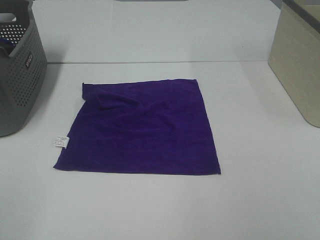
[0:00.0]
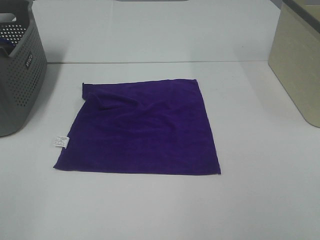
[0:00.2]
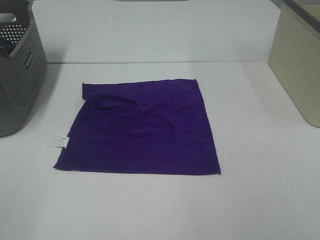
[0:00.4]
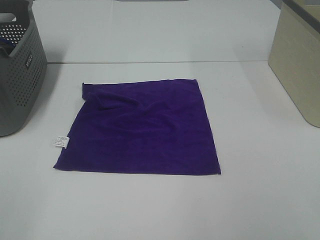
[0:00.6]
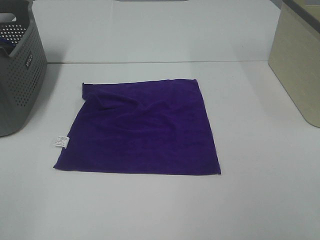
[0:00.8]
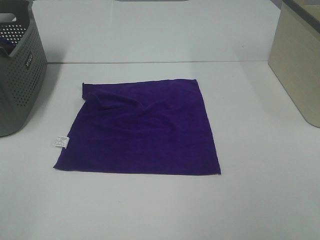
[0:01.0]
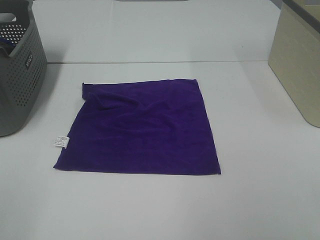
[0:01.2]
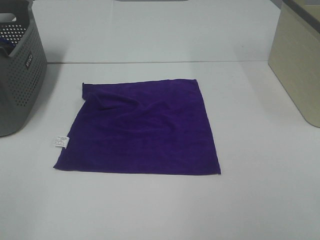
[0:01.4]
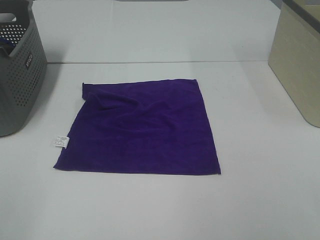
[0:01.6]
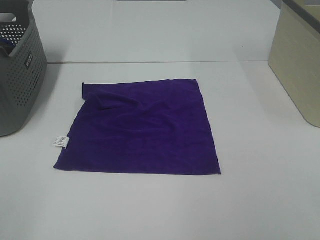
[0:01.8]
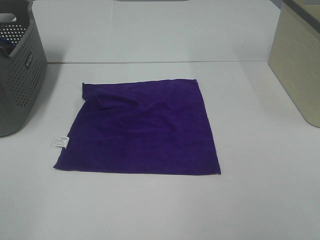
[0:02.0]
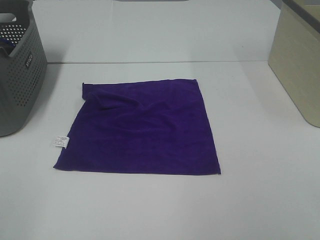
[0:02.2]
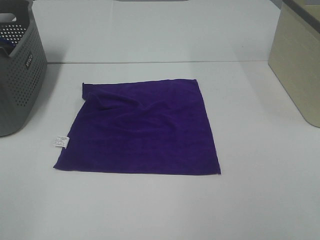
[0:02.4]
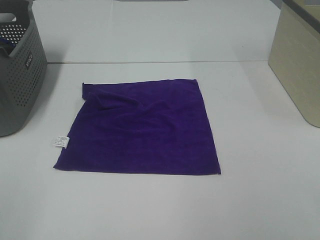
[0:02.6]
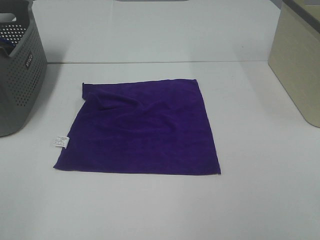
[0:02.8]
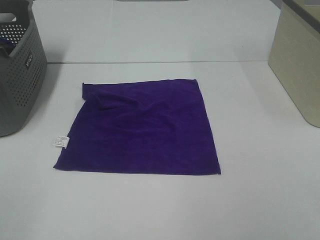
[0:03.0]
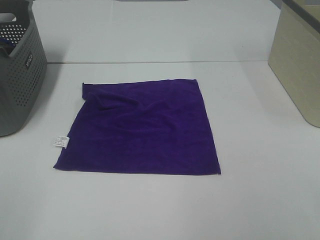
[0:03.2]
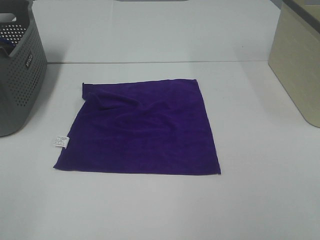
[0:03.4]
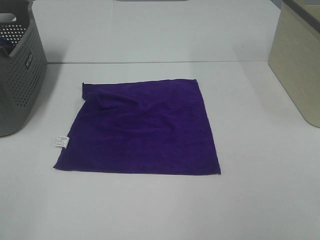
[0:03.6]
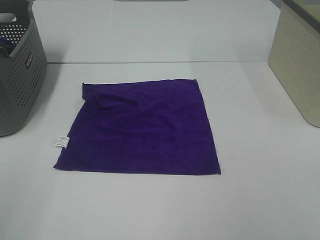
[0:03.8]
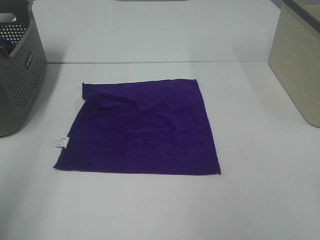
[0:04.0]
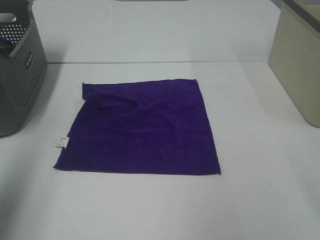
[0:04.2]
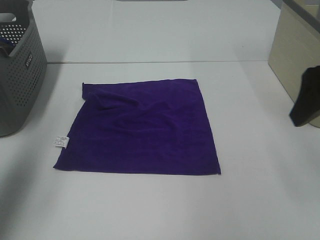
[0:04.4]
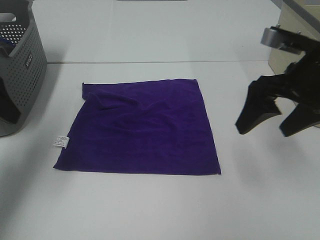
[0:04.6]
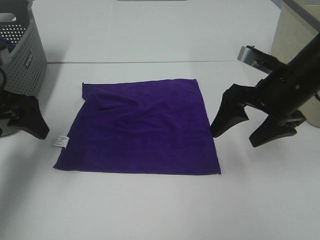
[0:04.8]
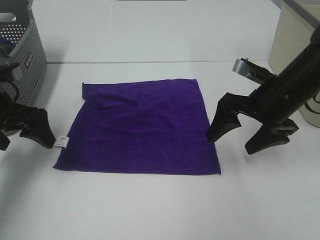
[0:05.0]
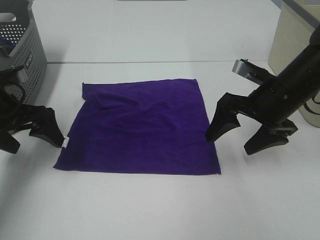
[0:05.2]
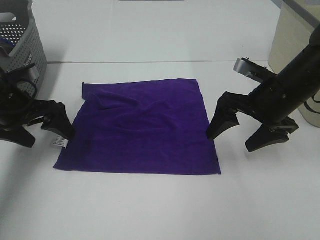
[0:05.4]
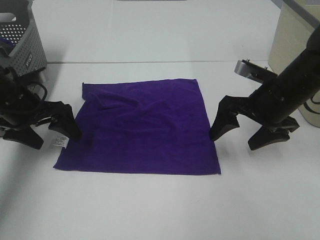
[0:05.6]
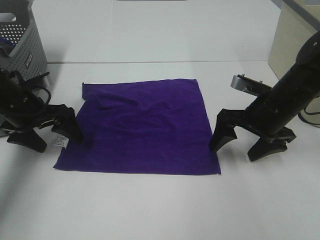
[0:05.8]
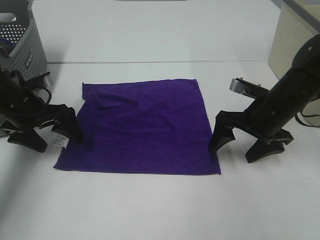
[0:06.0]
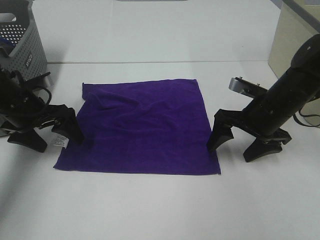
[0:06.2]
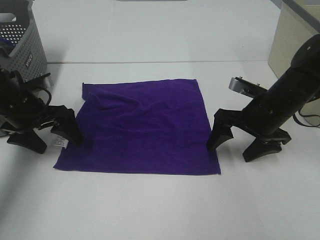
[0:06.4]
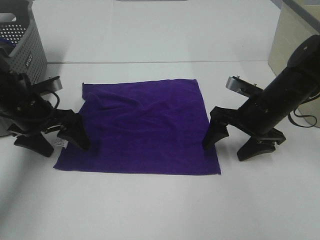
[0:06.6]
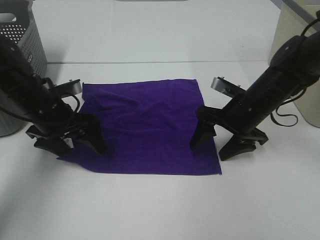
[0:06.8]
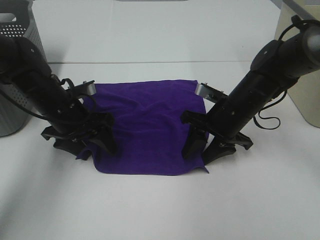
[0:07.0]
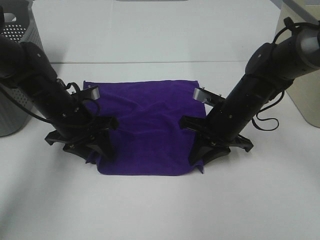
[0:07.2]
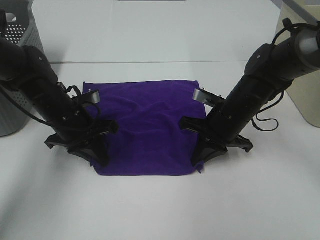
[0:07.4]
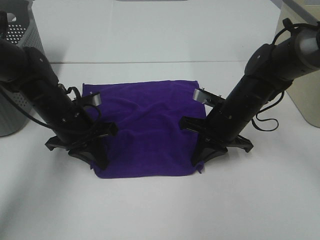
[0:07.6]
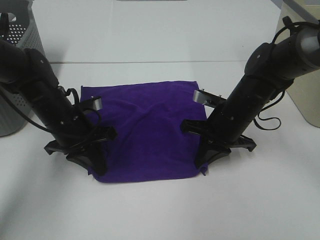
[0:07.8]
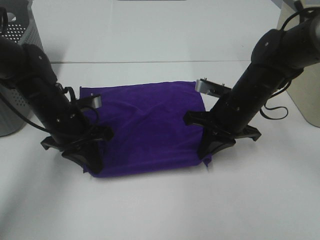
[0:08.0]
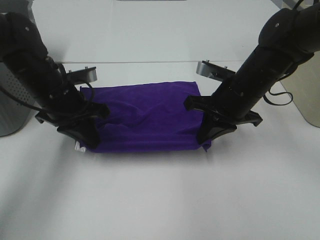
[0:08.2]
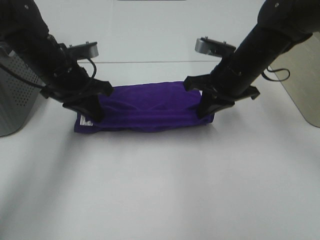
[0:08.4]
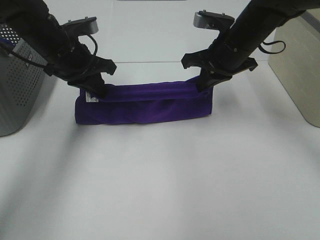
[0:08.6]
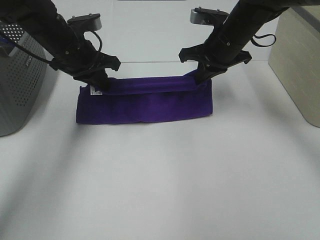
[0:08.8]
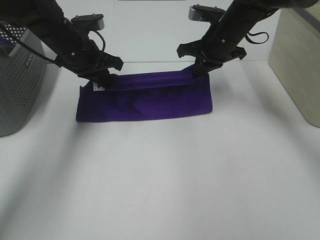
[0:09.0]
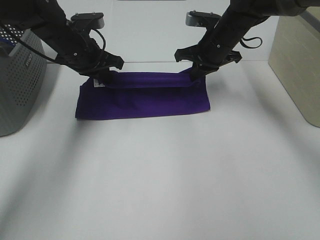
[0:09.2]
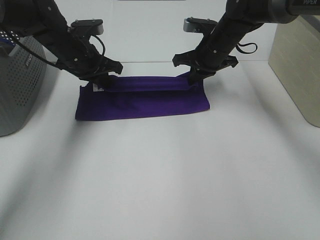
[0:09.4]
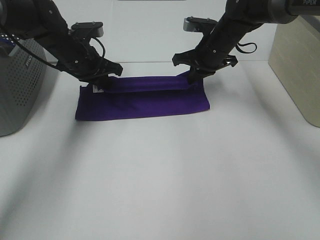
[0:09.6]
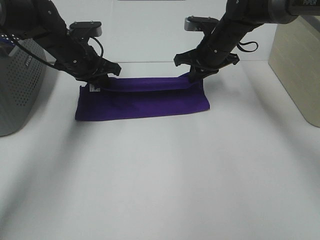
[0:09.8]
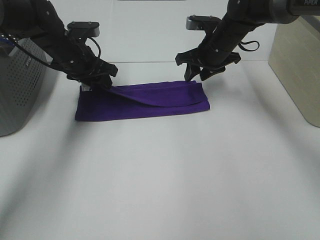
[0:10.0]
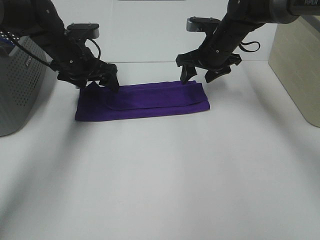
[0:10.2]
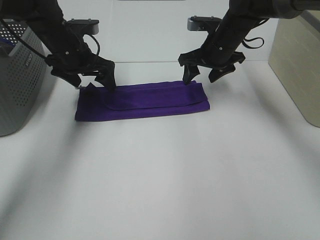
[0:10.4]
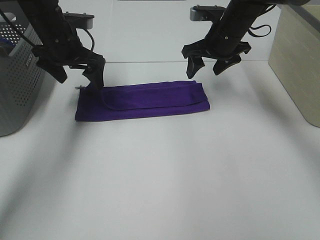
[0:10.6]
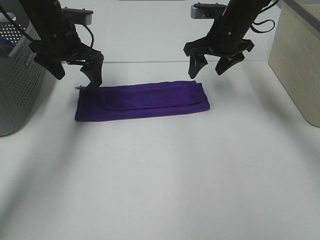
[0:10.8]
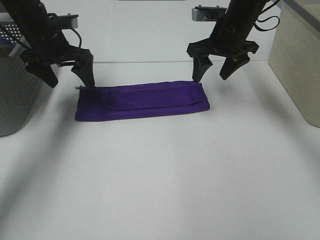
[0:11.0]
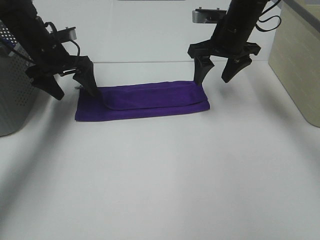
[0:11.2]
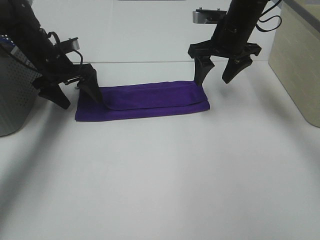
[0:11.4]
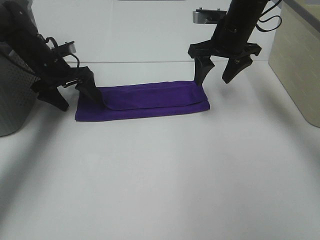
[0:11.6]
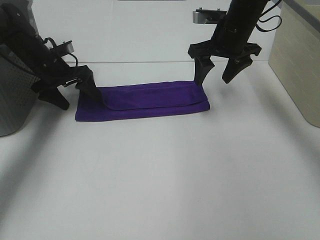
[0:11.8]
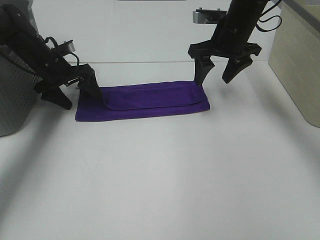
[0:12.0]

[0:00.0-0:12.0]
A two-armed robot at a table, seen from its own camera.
Task of the whole recording: Fold towels.
Step, 0:00.0 to 0:07.6: Left hand: grab the bottom left corner of purple towel.
Step, 0:00.0 to 0:07.6: Right hand: grab the bottom right corner of purple towel.
Step, 0:07.8 to 0:09.6: Left hand: fold the purple towel up.
Step, 0:07.8 to 0:09.6: Right hand: fold the purple towel up.
0:00.0 to 0:03.0: The two grippers keep their place.
0:03.0 to 0:04.4: Both grippers travel together forward, approximately 25 cm.
0:04.4 to 0:06.0: Both grippers travel together downward and forward, some 20 cm.
0:06.0 to 0:07.6: The left gripper travels to the right by roughly 10 cm, and closes its fingers, while the right gripper travels to the left by approximately 5 cm, and closes.
0:07.6 to 0:09.0: The grippers both shift forward and upward by approximately 15 cm.
0:09.0 to 0:10.4: The right gripper opens up. Meanwhile the left gripper opens up.
0:10.4 to 0:12.0: The left gripper travels to the left and downward by roughly 10 cm.

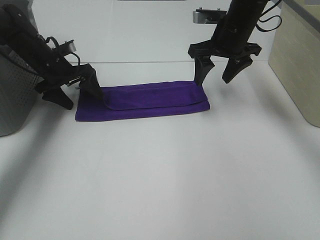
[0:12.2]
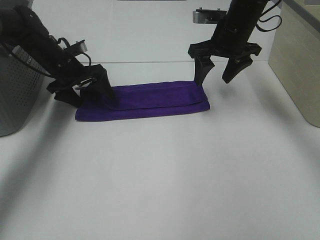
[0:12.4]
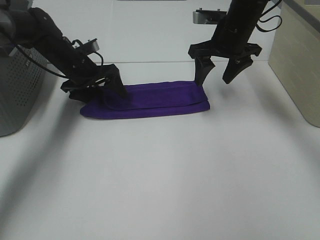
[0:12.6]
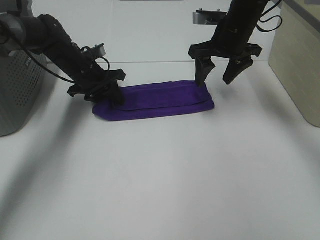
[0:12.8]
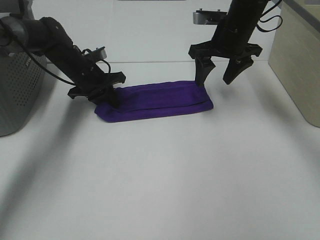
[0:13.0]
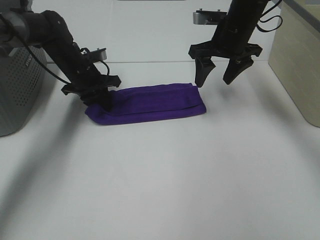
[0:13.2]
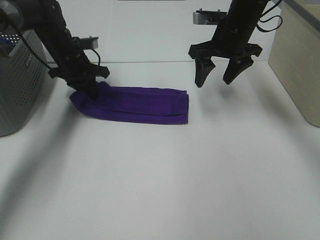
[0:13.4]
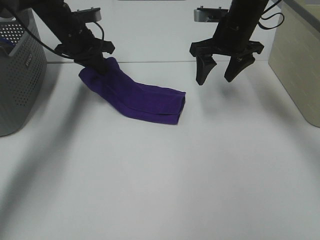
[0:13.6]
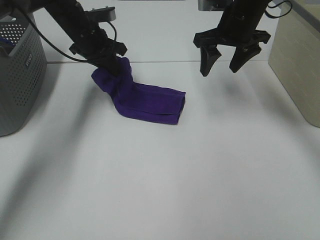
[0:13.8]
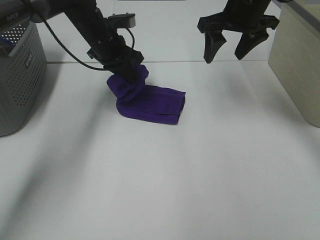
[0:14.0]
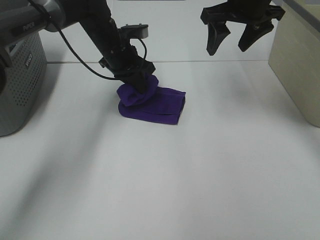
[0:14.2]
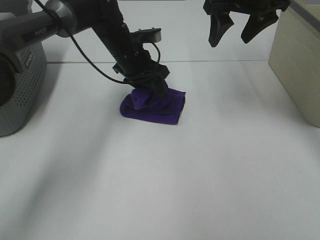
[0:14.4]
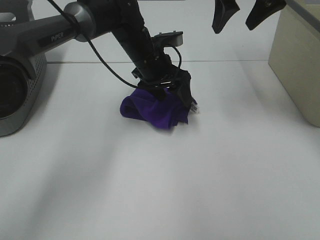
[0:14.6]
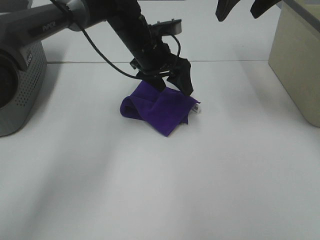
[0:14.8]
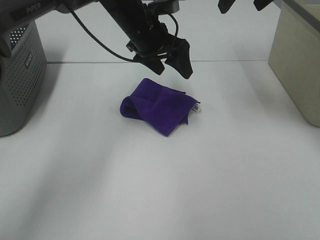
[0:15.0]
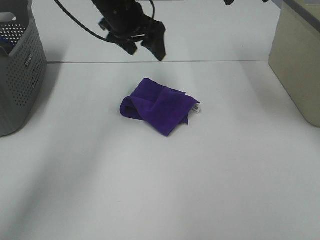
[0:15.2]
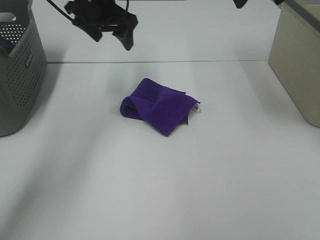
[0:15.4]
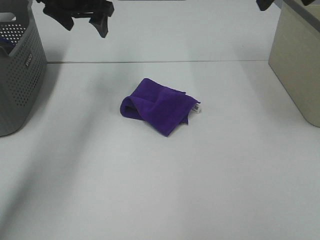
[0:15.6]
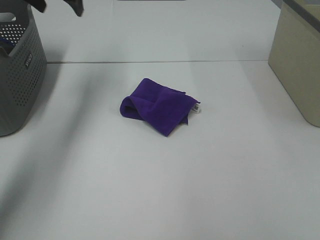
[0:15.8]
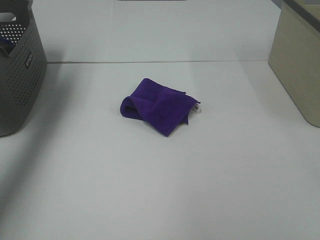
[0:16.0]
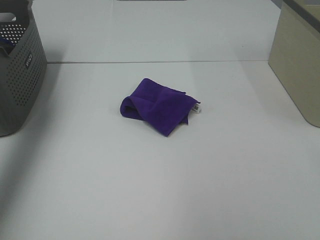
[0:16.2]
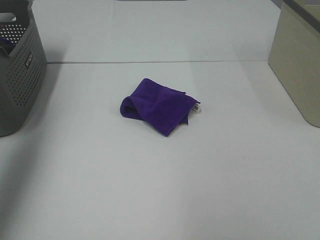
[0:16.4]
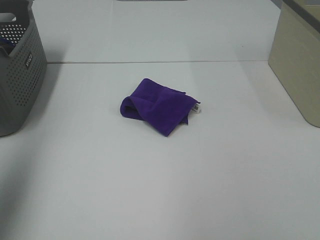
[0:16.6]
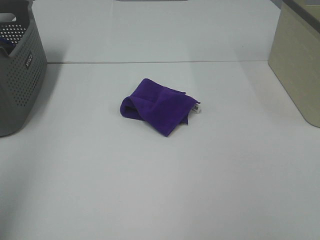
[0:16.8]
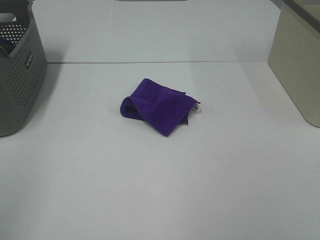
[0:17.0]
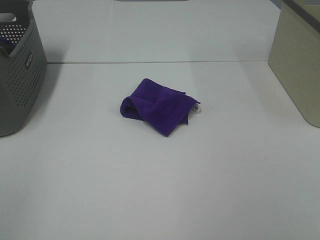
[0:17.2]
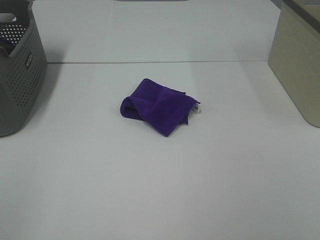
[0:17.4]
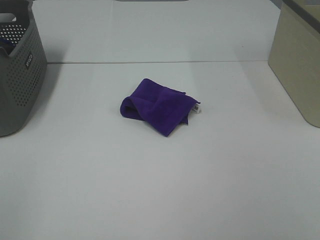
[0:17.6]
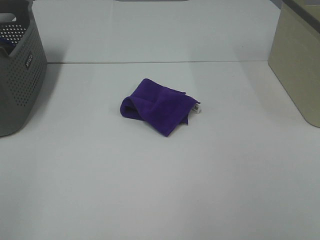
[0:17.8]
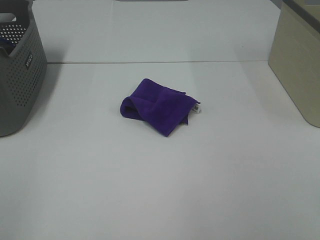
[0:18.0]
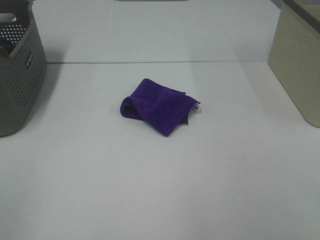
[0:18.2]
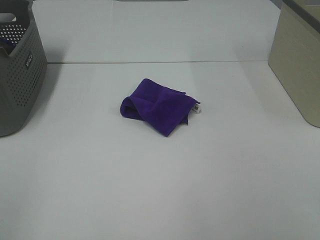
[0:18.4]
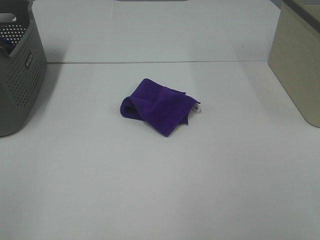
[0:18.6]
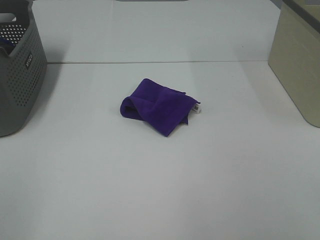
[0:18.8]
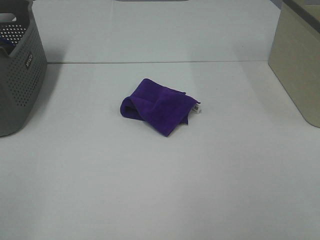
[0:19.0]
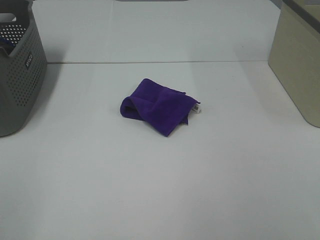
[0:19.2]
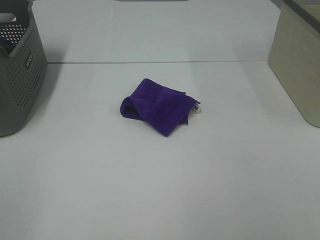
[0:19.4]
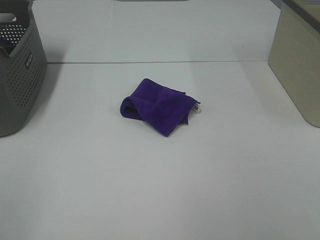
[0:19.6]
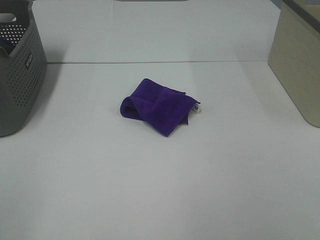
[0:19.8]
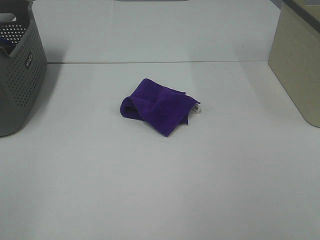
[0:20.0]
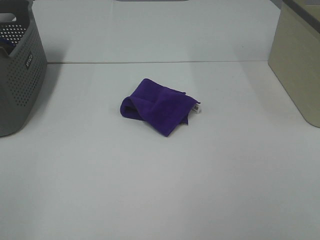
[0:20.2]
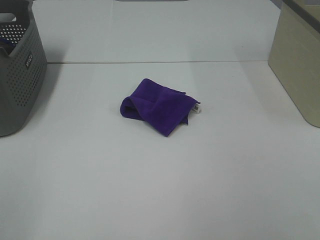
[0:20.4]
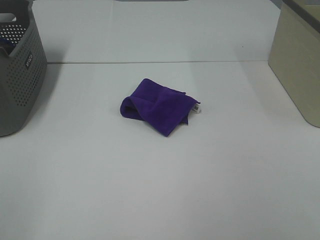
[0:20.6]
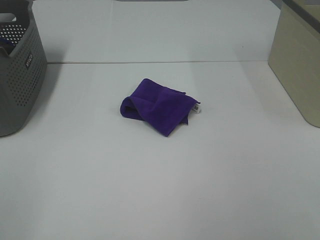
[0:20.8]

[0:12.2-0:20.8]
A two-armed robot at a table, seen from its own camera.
Task of the whole recording: Fold towels.
Step, 0:12.2 to 0:14.4: Left hand: fold the purple towel from left to right.
0:12.2 to 0:13.6: The left gripper goes roughly 10 cm upward and to the right, and closes.
0:13.6 to 0:15.0: The right gripper goes about 15 cm upward; the left gripper travels to the right and backward by some 15 cm, and opens its fingers.
0:15.0 to 0:16.6: The left gripper moves backward, to the left and upward, approximately 40 cm. Meanwhile the right gripper shifts roughly 35 cm backward.
0:16.6 to 0:18.0: The left gripper is displaced backward and downward by some 20 cm.
0:19.4 to 0:20.8: Both grippers stay about where they are.
